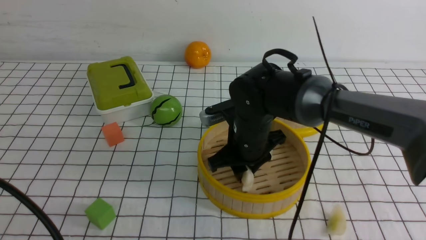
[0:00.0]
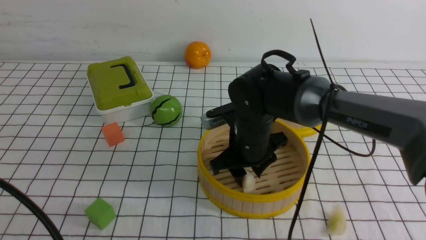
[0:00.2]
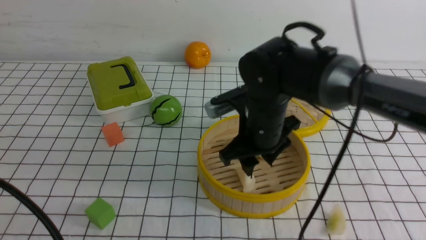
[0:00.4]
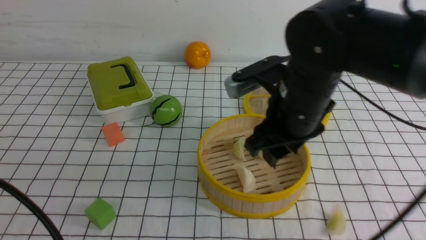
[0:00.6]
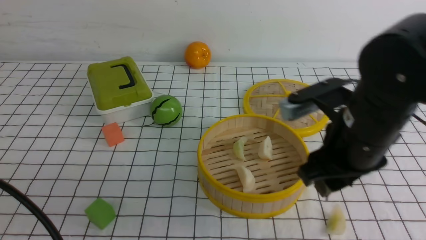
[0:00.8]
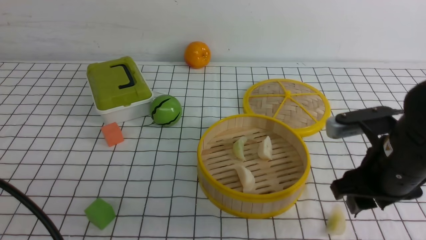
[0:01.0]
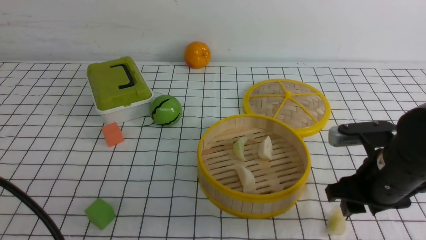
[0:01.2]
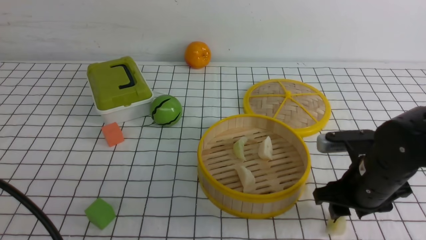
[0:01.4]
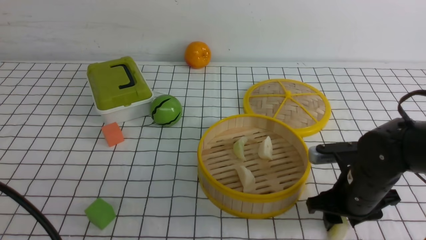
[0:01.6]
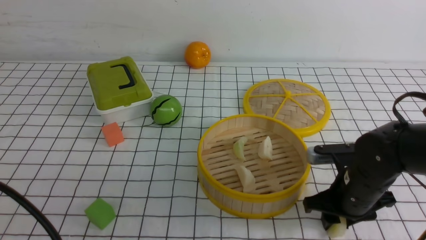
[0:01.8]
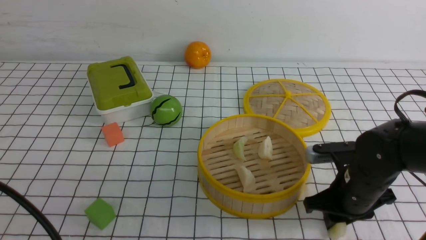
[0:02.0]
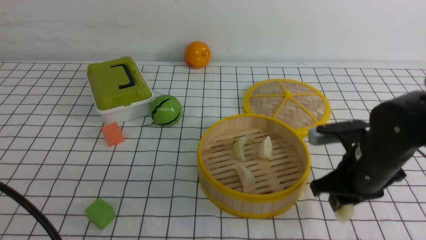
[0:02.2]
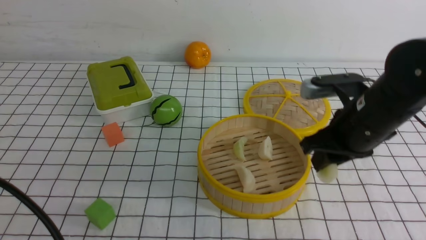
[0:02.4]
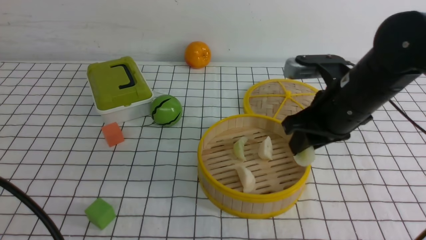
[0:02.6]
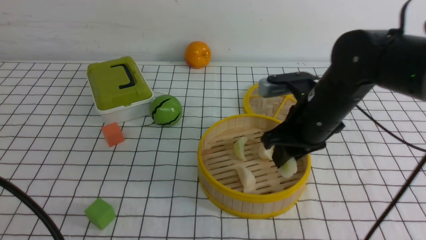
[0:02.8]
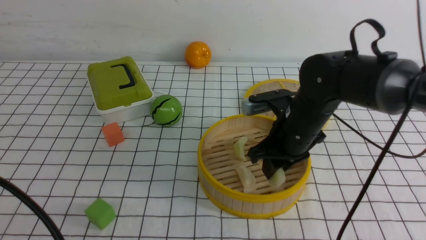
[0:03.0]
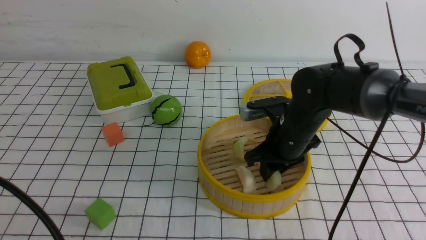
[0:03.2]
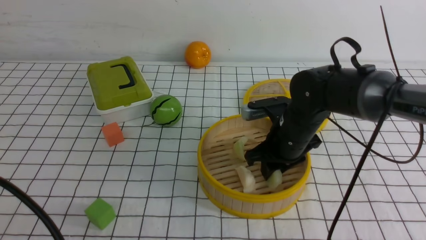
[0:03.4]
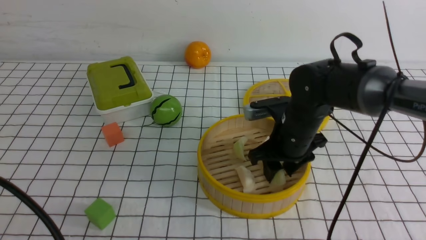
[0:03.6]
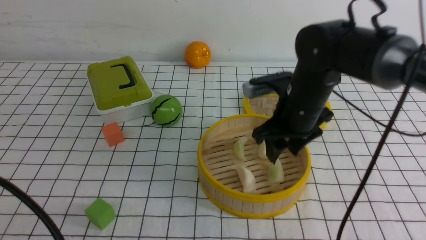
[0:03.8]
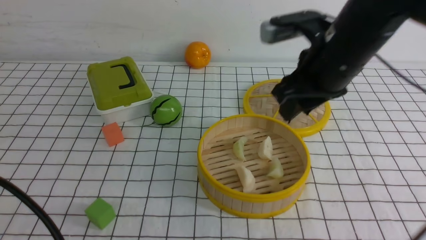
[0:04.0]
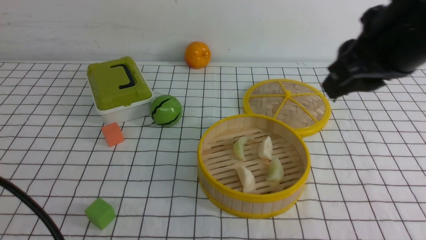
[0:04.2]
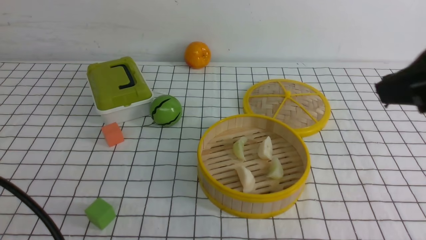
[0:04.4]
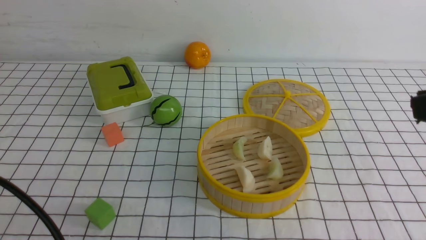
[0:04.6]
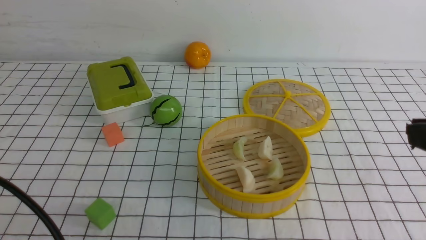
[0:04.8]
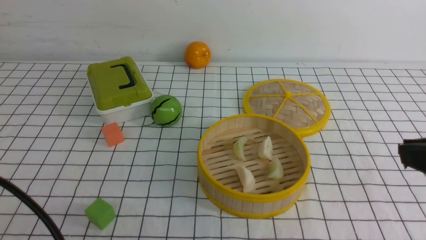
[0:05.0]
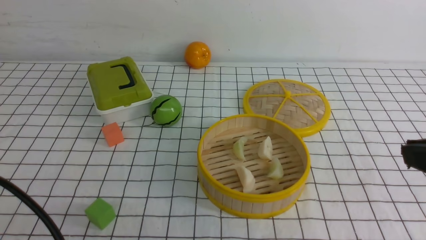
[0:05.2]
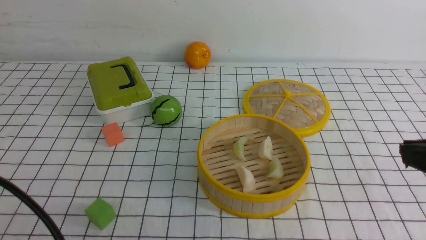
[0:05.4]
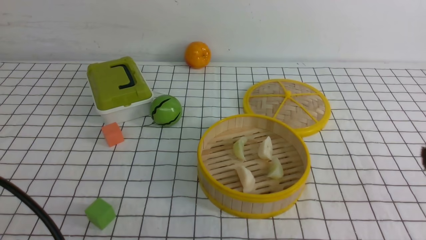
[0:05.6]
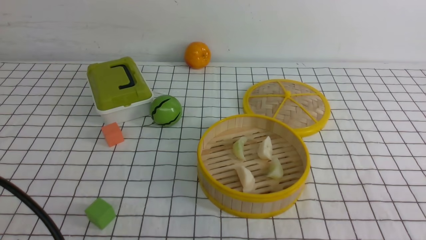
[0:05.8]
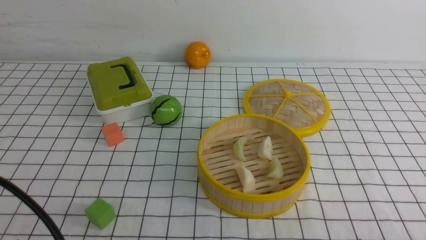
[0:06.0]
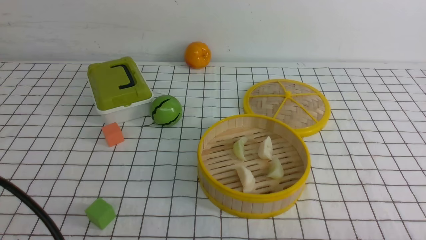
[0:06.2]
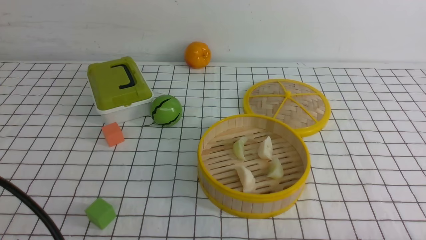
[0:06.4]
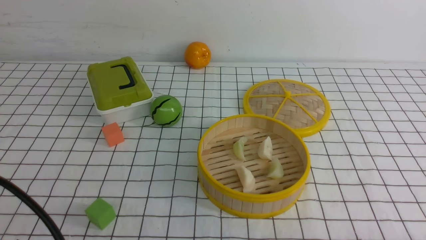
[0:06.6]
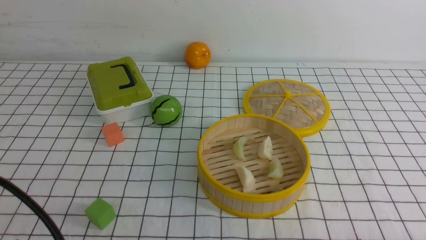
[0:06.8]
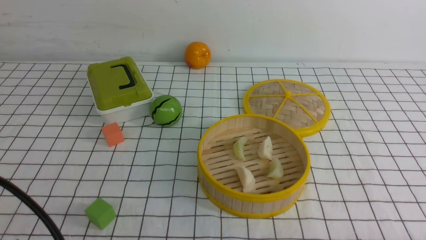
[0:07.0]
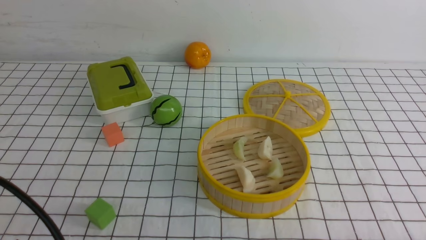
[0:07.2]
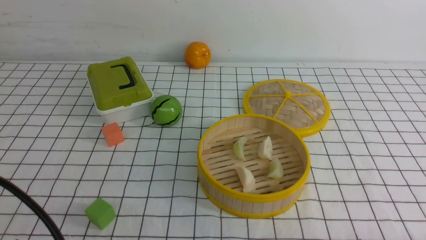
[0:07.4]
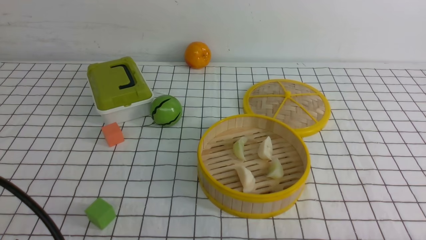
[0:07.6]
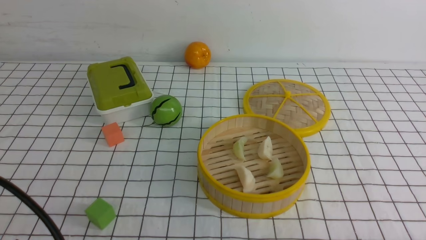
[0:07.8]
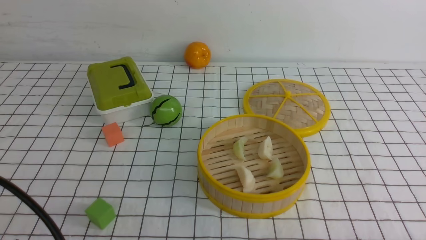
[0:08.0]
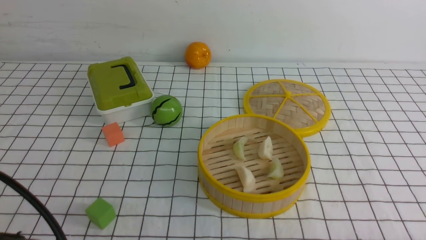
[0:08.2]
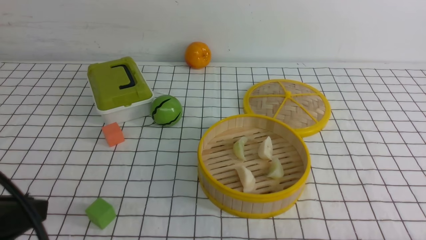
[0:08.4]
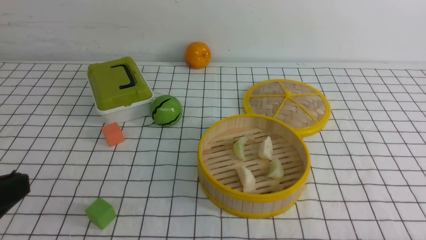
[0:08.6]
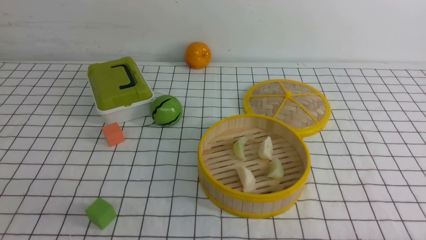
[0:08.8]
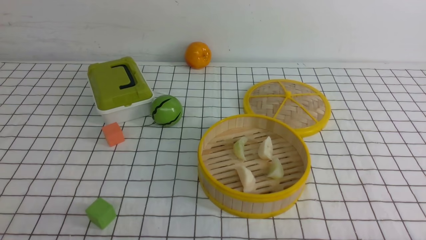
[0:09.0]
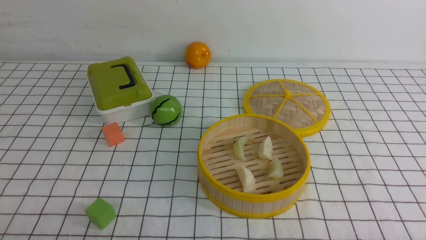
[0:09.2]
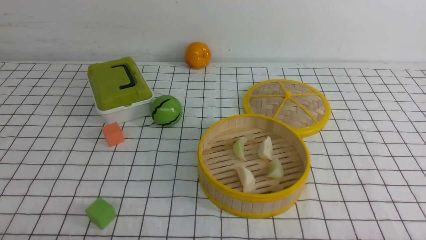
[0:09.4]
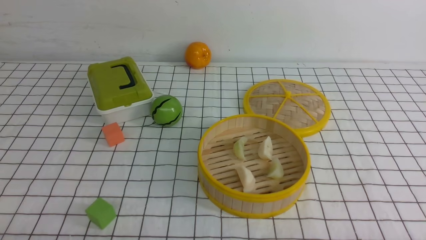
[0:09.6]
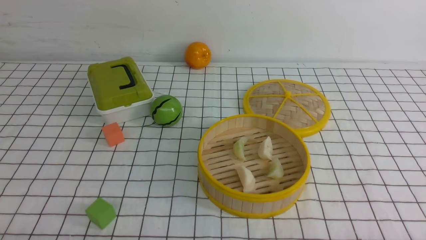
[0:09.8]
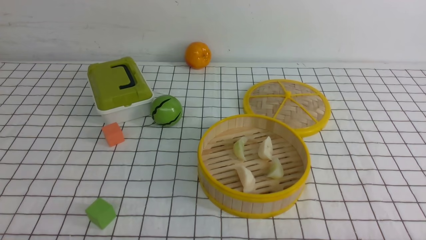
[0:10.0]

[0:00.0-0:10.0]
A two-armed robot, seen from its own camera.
Task of the whole recording: put the dumplings into the steamer on the table with the white tablecloth.
Step, 0:00.8 to 0:02.2: use the right arm to grab a dumpling.
Step, 0:02.4 to 0:04.8: use the right arm to put the dumpling into the steamer.
0:00.0 to 0:01.4: The right gripper goes about 20 cm to the right and backward.
0:01.4 to 0:02.8: The right gripper travels to the left, forward and upward by some 10 cm, and closes.
0:02.8 to 0:04.2: The right gripper is displaced upward and backward by some 20 cm.
0:04.2 to 0:05.8: The right gripper travels backward, downward and to the right by roughly 25 cm, and closes its fingers.
0:07.2 to 0:08.6: The left gripper closes up.
0:08.6 to 0:10.0: The left gripper is displaced downward by approximately 15 cm.

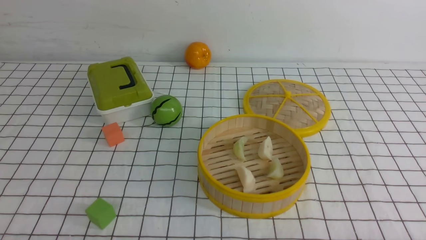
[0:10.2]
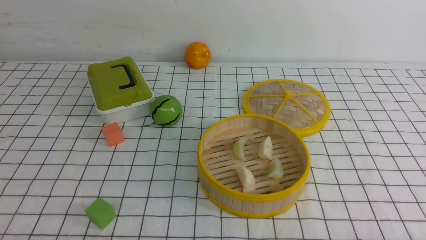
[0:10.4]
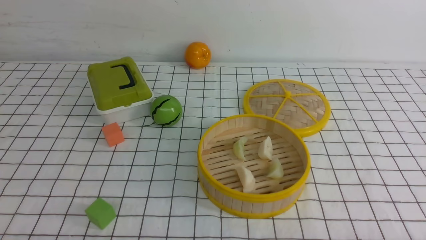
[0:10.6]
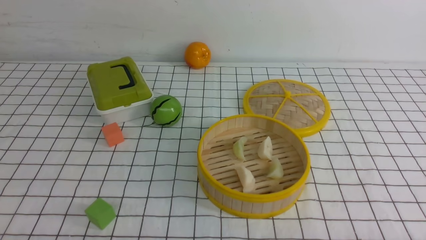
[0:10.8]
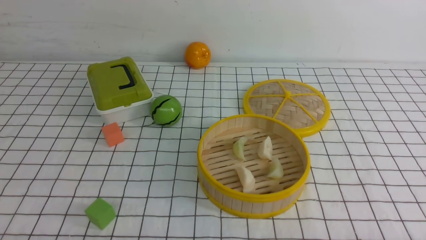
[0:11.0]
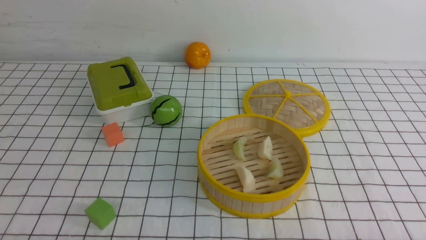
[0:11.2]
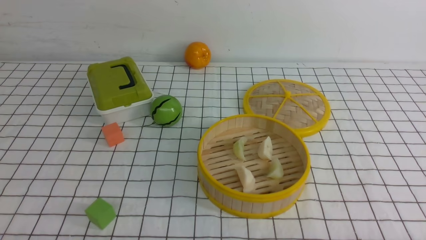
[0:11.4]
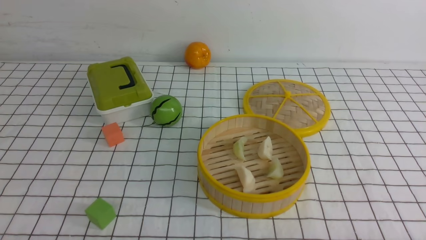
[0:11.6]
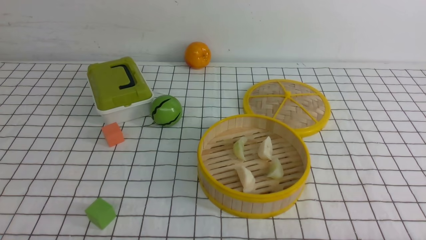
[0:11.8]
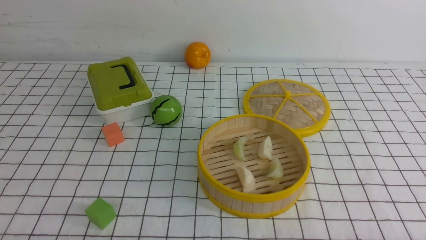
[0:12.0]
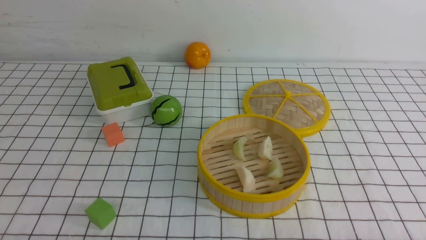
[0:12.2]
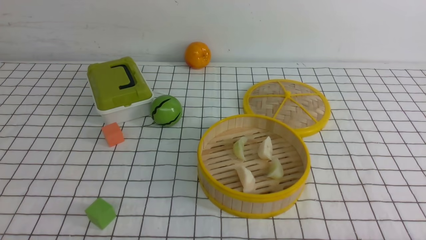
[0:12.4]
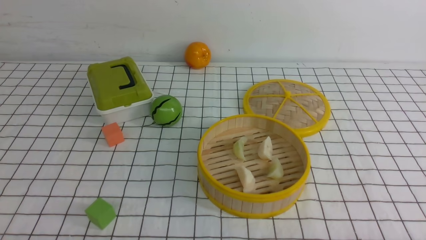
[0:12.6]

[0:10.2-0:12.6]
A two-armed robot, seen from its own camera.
Task of the whole recording: put the dumplings into the steamer on the table with the white tablecloth.
0:10.2 to 0:12.6: Neither gripper changes place.

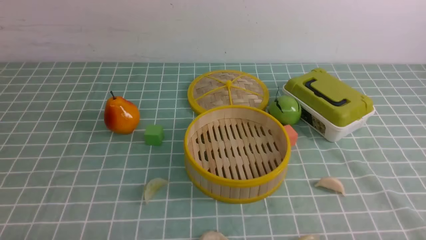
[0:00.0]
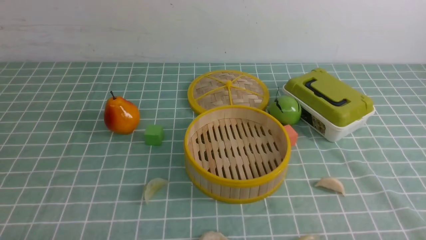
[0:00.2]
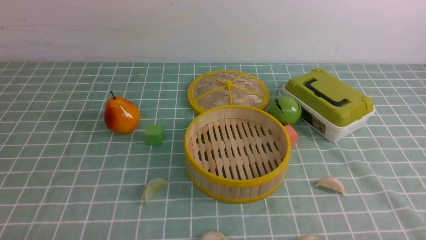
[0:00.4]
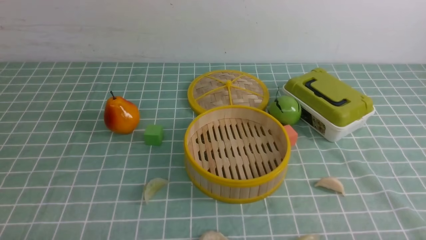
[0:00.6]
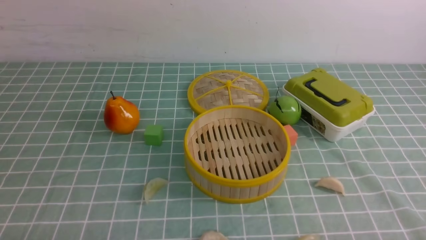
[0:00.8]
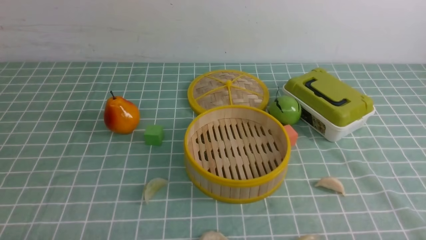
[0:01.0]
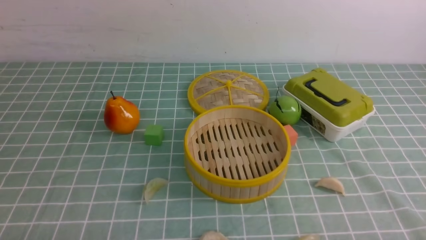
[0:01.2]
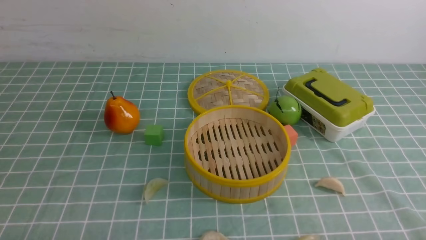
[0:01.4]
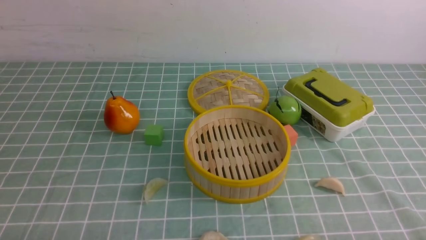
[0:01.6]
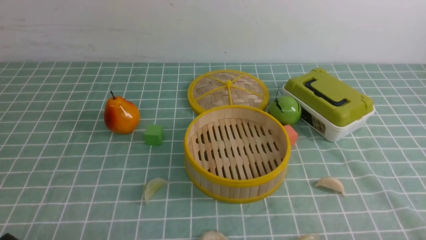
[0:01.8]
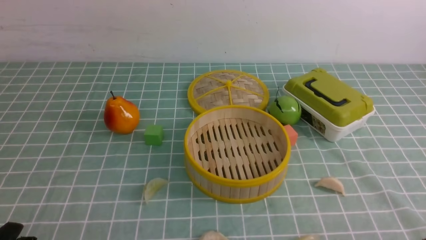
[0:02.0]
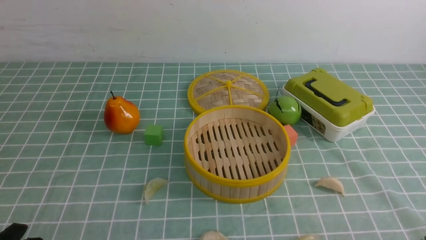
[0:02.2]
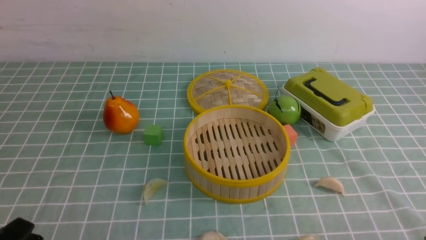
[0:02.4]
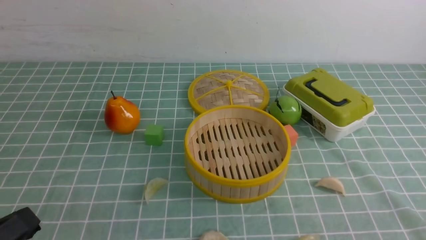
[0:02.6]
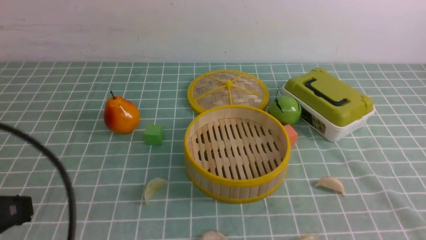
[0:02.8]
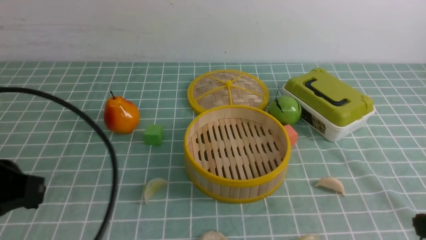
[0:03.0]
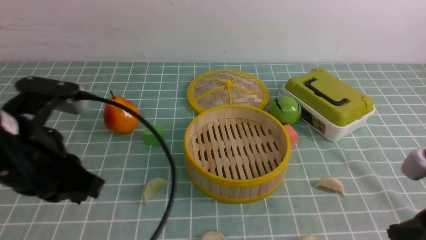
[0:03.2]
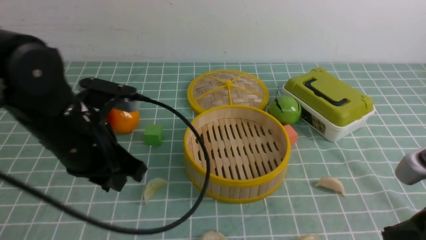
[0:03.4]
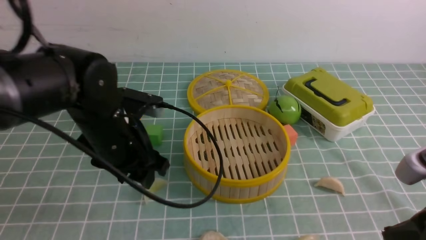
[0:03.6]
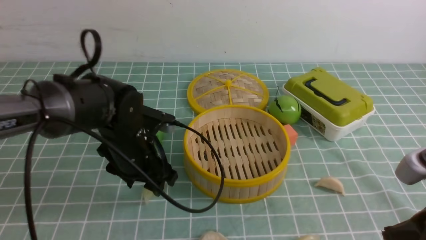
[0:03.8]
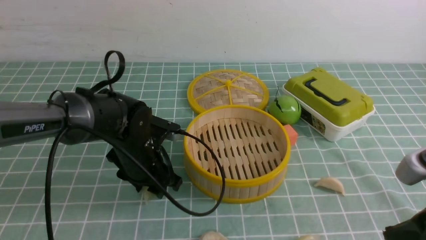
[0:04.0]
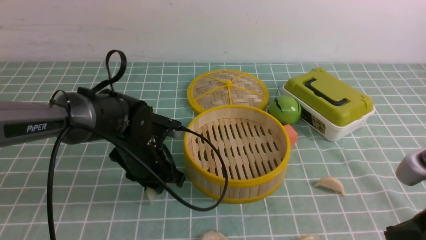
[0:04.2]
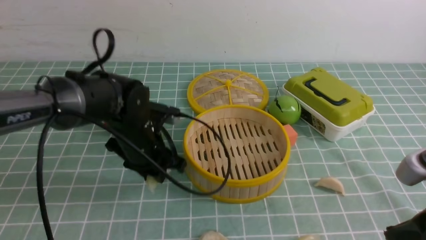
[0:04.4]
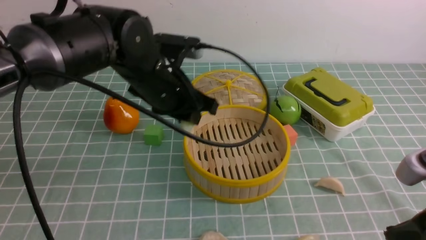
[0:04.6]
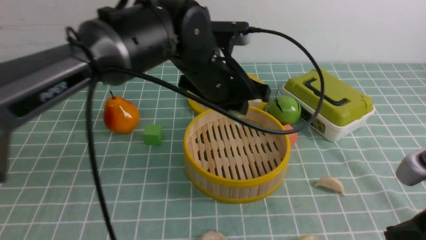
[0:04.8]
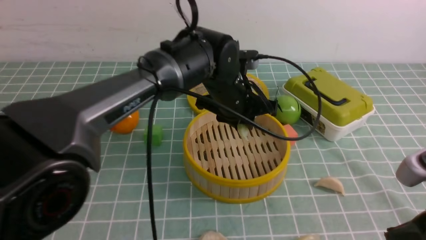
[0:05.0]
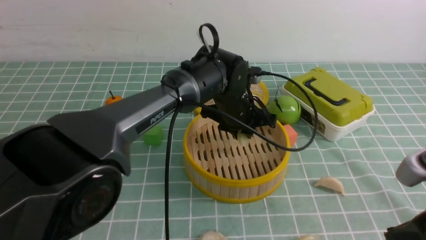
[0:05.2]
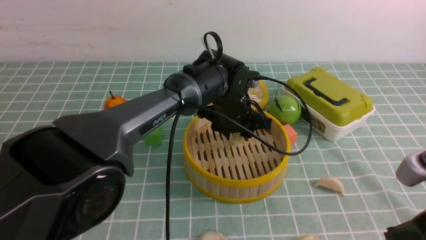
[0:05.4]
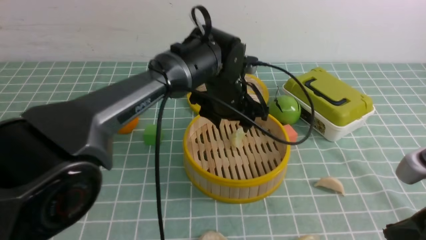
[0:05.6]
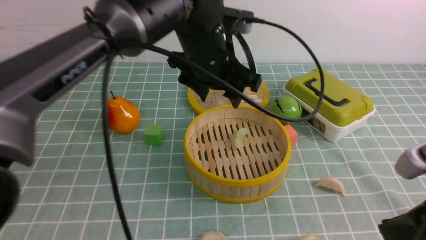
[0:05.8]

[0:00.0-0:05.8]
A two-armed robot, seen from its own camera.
Task of the whole recording: put the dumplings into the steamer on the table with the blue tablecloth.
Step, 0:00.0 to 0:04.4: use the left arm to grab a dumpling.
Step, 0:04.6 to 0:05.6: use the left arm to put the dumpling into the steamer.
0:00.0 to 0:01.4: Neither gripper changes place.
0:01.4 to 0:02.8: The left gripper moves upward, some 15 cm, and closes its fingers.
0:02.8 to 0:04.4: The left gripper is displaced forward and to the right by roughly 30 cm, and opens up; the right gripper ends up approximately 5 cm from where it was.
0:04.4 to 0:05.8: The left gripper heads upward and to the right, covering roughly 15 cm, and opens up.
